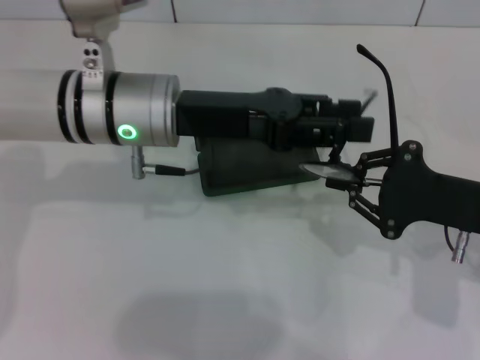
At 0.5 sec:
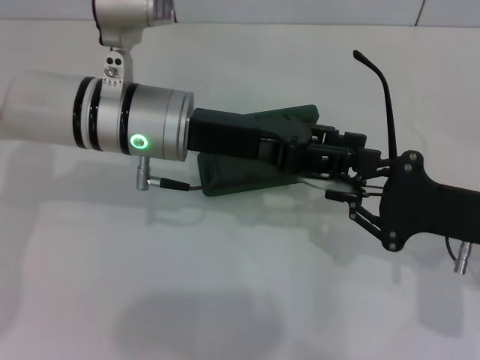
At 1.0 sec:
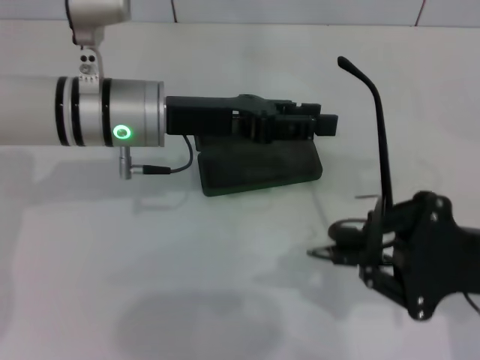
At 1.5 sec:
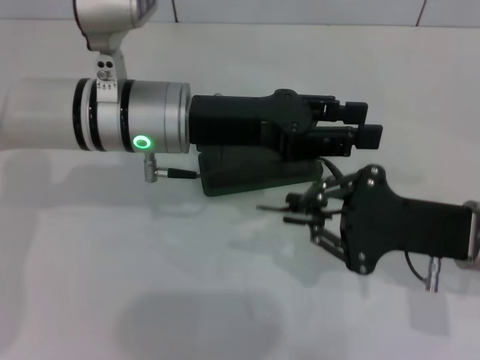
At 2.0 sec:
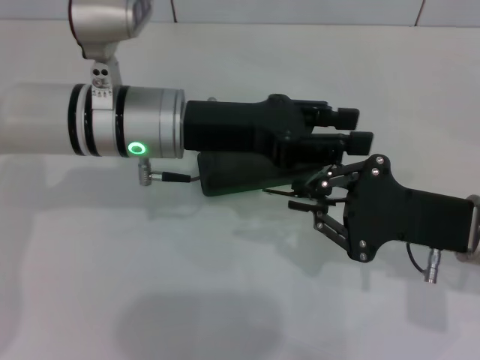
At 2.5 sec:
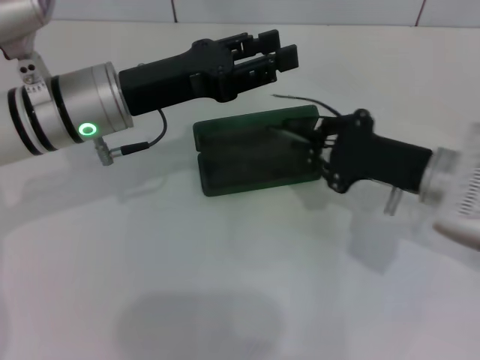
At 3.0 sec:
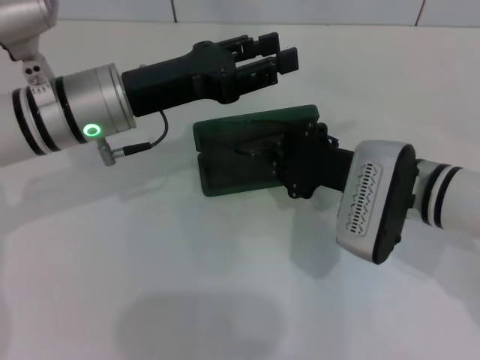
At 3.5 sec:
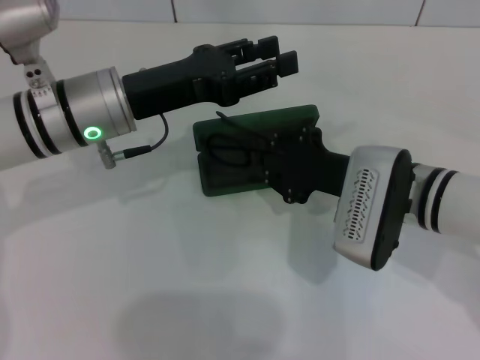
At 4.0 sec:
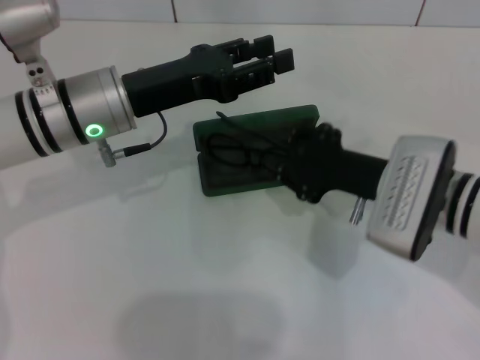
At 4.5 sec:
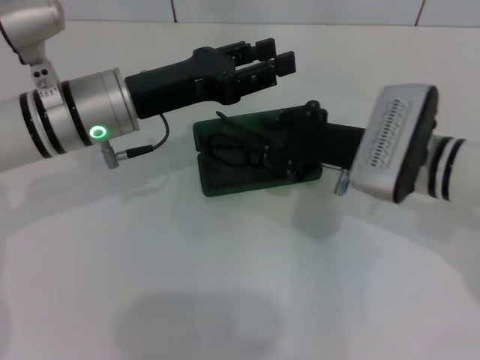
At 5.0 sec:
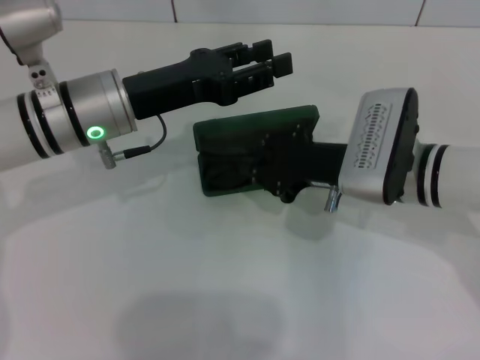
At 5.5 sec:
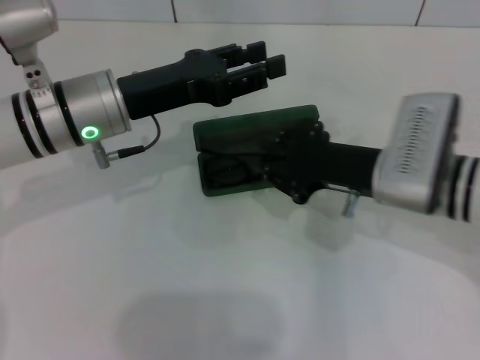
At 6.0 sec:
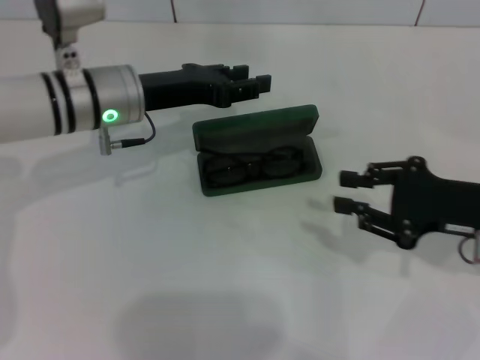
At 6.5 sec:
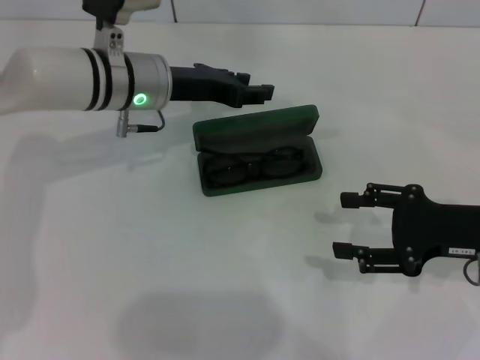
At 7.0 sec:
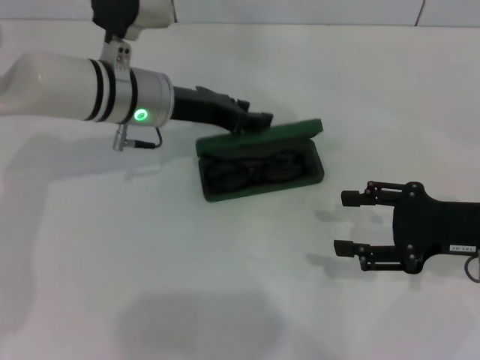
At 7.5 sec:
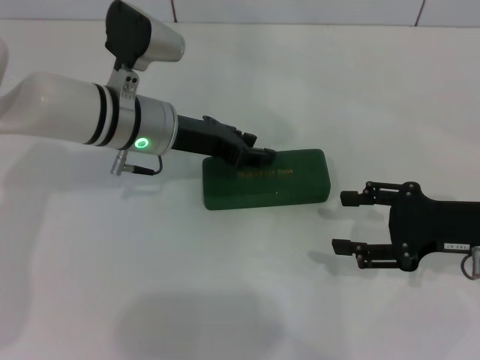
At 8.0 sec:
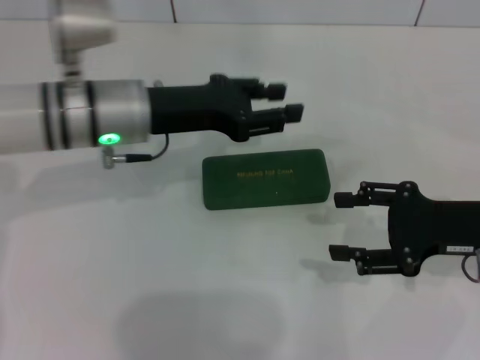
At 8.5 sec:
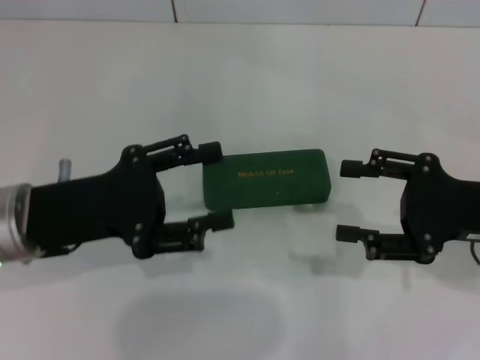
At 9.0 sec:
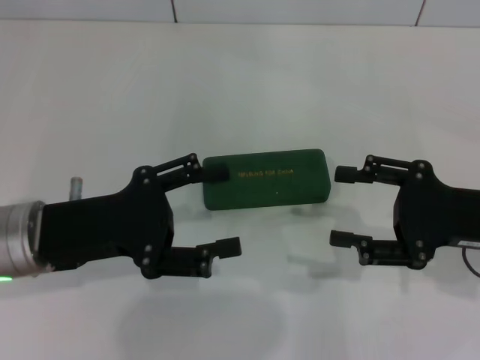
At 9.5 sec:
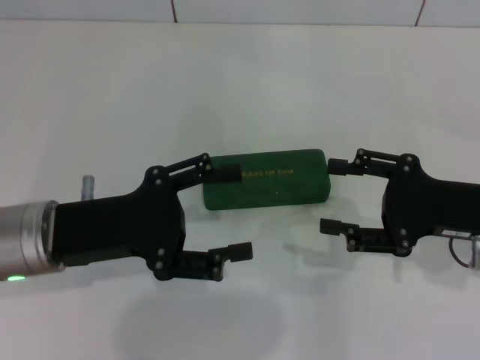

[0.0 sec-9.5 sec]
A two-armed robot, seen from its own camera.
Step, 0.0 sec to 2.0 sec: Fold the frame with your left hand.
Step, 2.5 sec to 5.0 sec: Put the glasses into the case with your right hand.
Step, 5.5 sec to 7.5 sec: Close the glasses case with your left hand.
2.0 sec to 4.0 sec: The left gripper changes place by some 5 cm. The right gripper is displaced to the left by approximately 5 cm.
4.0 sec to 5.5 sec: There are only small adjustments of the grippers.
5.5 sec to 7.5 sec: The left gripper ends up roughly 5 cm from where it was. The right gripper moves to the right, approximately 10 cm, and opens.
7.5 sec to 9.5 sec: The left gripper is displaced backward and to the left by about 15 cm, and opens.
